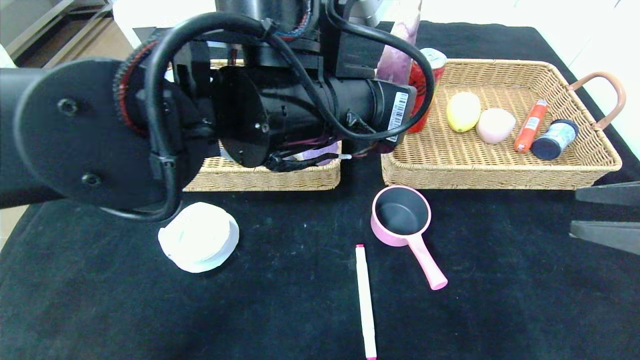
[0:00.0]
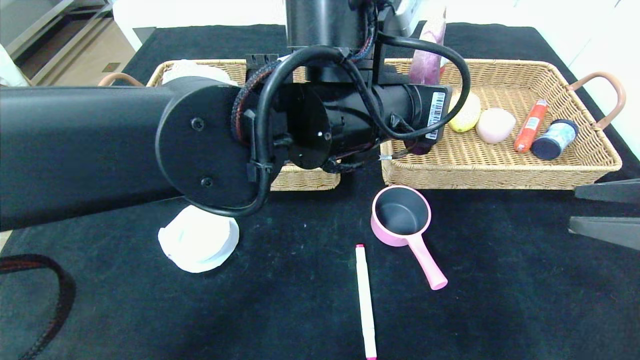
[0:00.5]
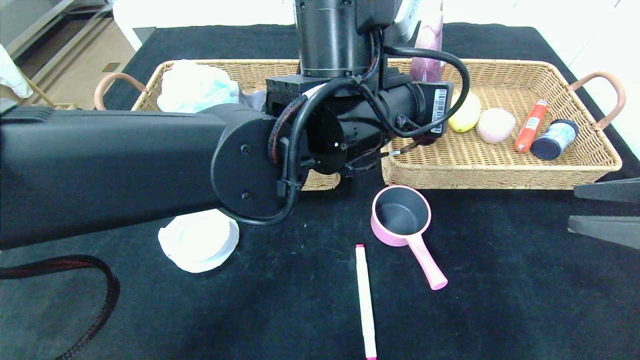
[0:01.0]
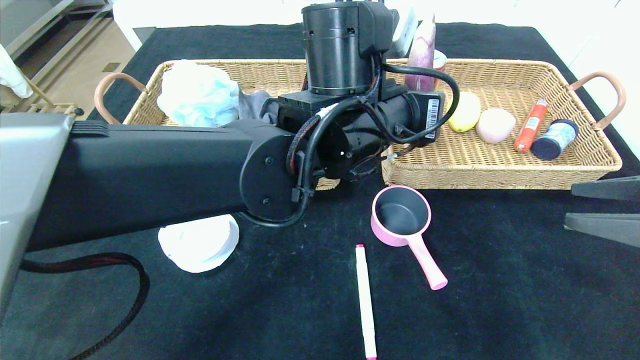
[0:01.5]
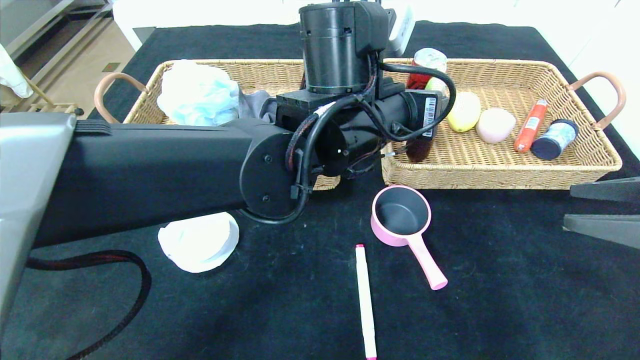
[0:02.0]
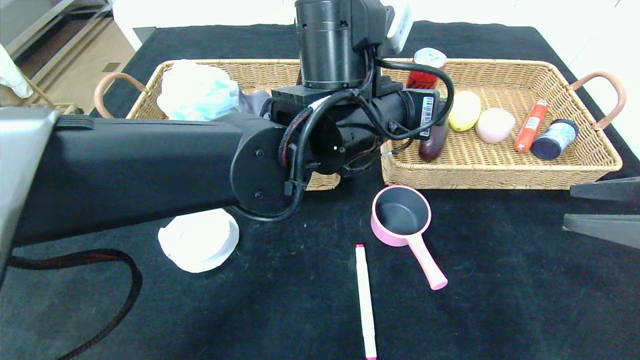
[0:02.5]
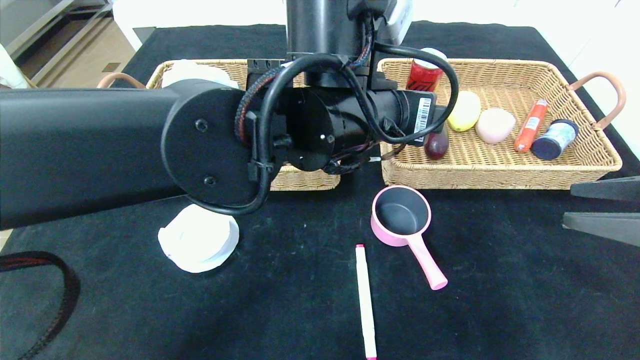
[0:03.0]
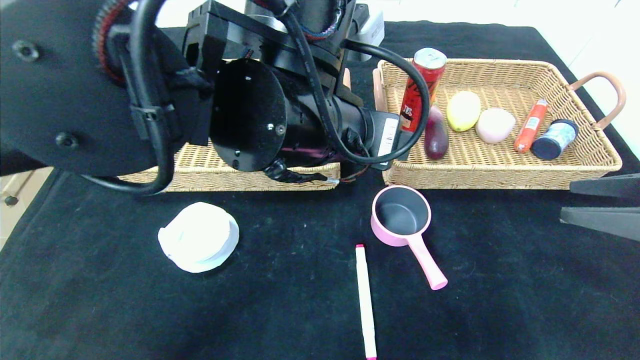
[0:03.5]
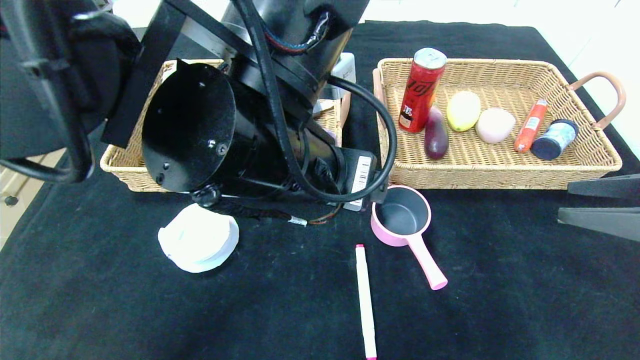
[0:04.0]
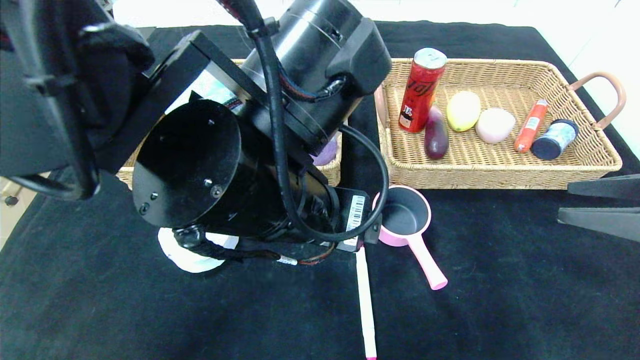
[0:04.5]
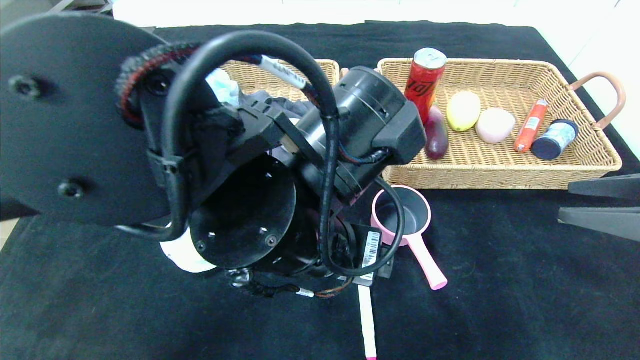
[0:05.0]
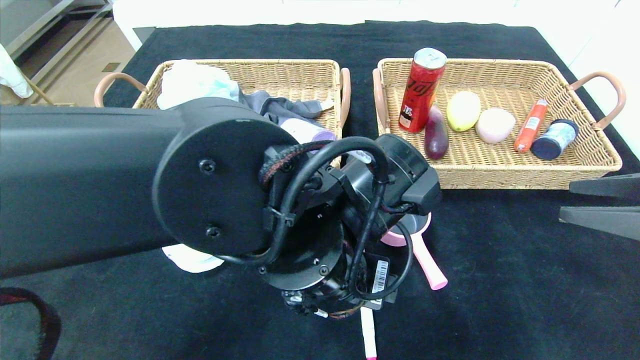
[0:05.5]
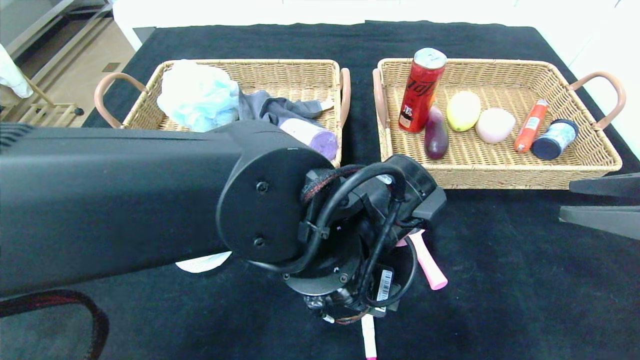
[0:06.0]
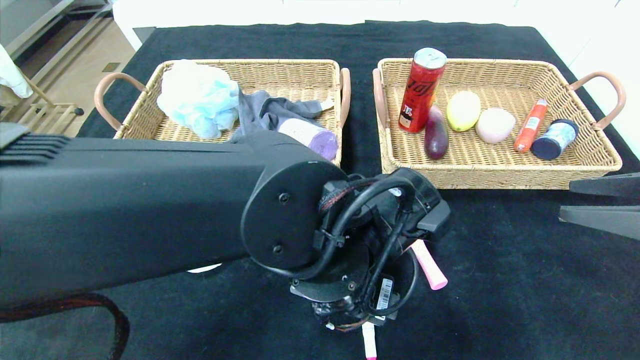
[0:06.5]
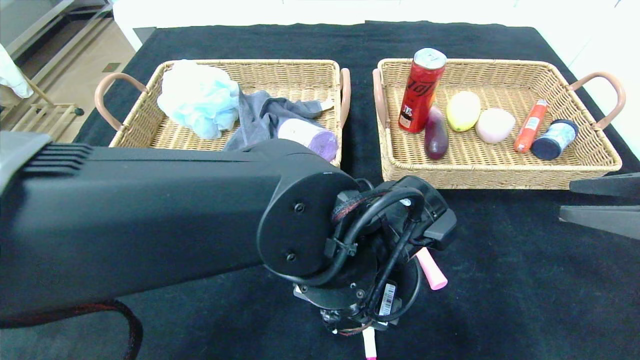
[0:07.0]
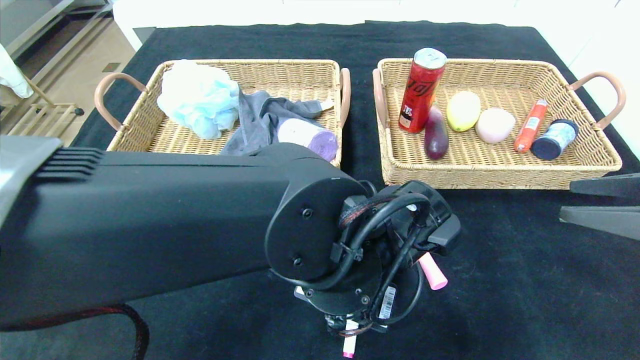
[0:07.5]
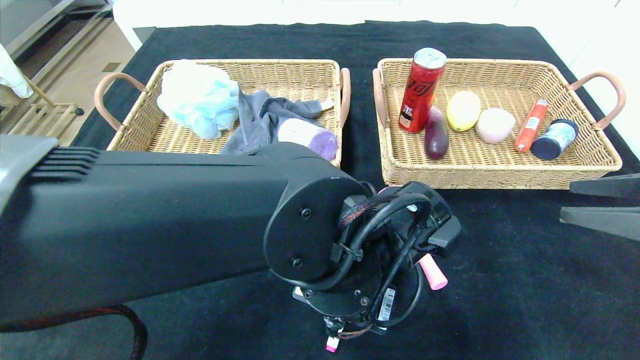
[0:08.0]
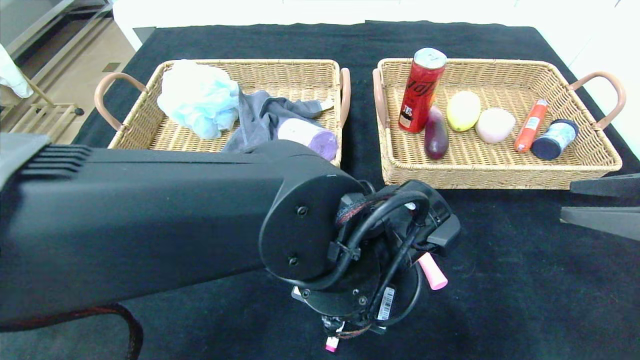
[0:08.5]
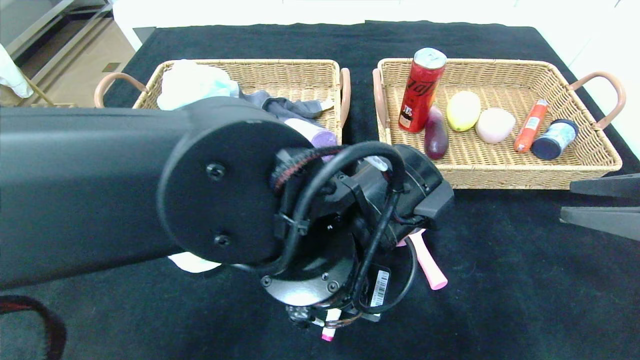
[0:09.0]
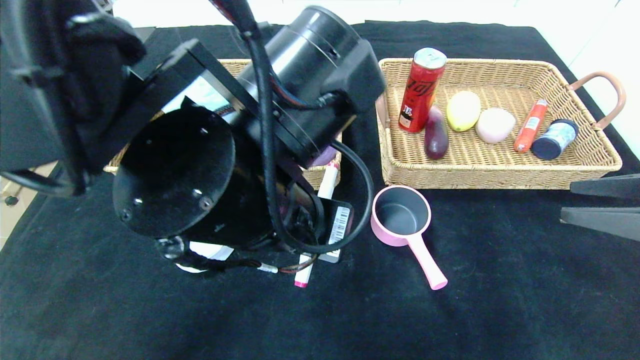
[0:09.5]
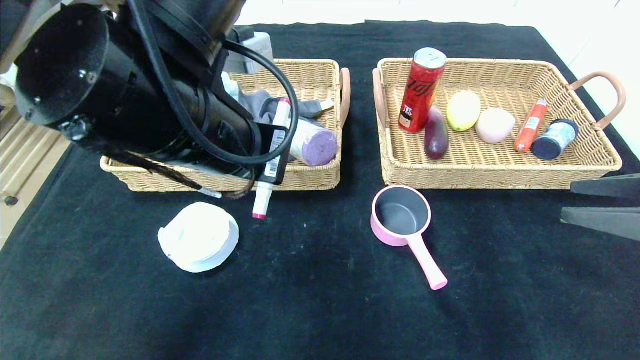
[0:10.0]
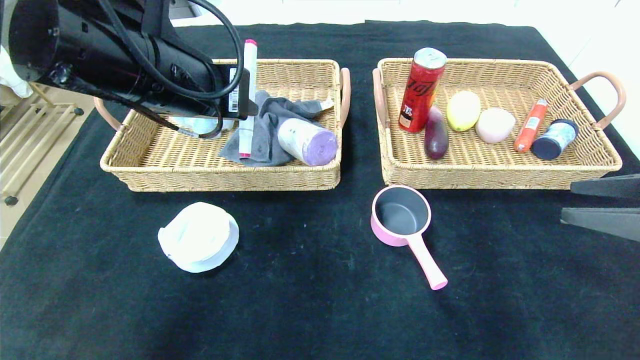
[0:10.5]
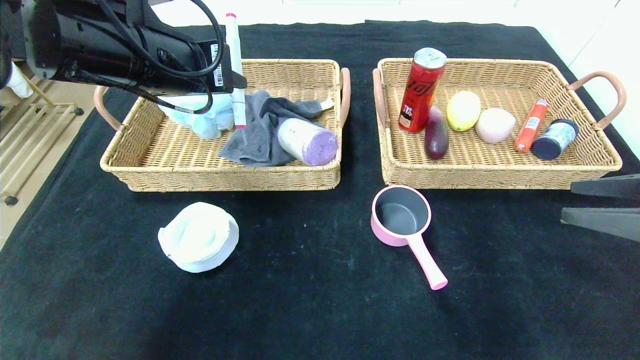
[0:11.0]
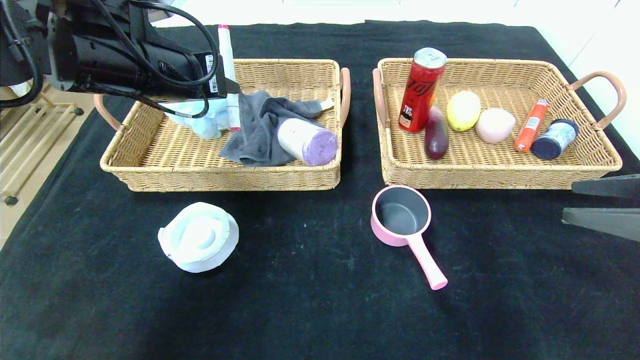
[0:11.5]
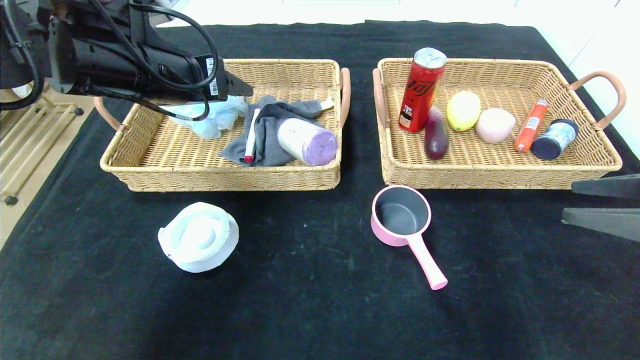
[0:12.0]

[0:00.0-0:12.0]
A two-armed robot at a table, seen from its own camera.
Step, 0:00.0 to 0:05.5: Grasp the pink marker and put it in the left basket.
0:00.0 to 0:02.0: The left gripper travels forward by some 5 cm.
0:02.0 to 0:04.0: The left gripper heads backward and to the left, covering about 10 cm.
0:04.0 to 0:06.0: The left gripper shifts about 10 cm downward.
0:06.0 to 0:08.0: The left gripper closes up.
0:08.0 to 0:10.0: The left gripper moves upward and to the left, some 20 cm.
0:10.0 to 0:12.0: The left gripper travels forward and to the left by approximately 15 cm, and opens.

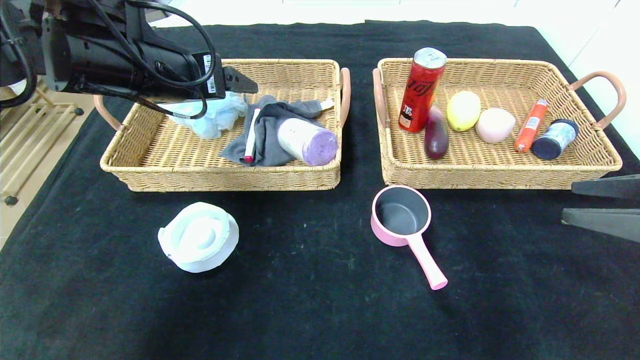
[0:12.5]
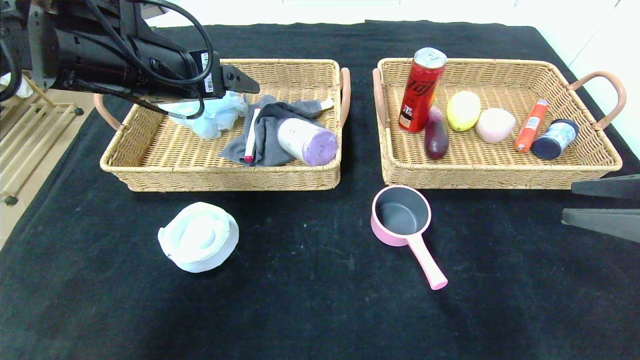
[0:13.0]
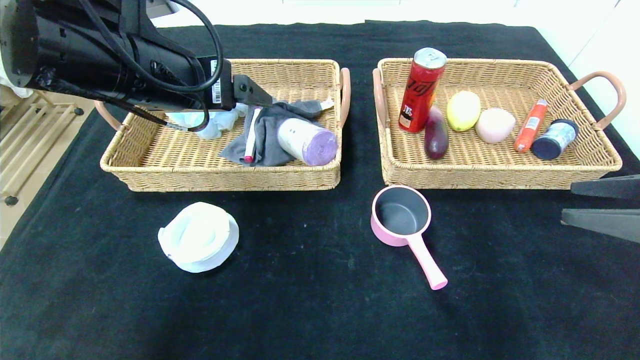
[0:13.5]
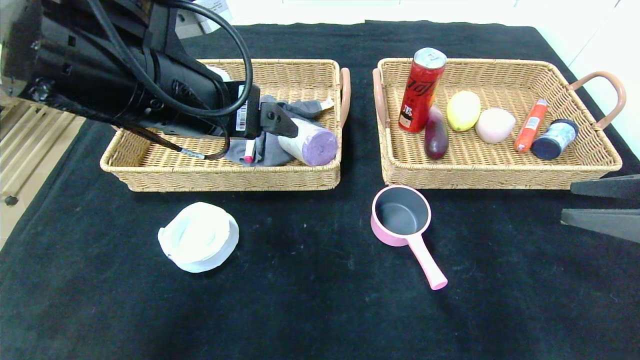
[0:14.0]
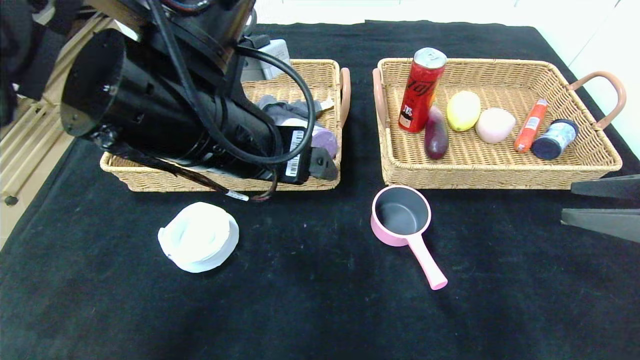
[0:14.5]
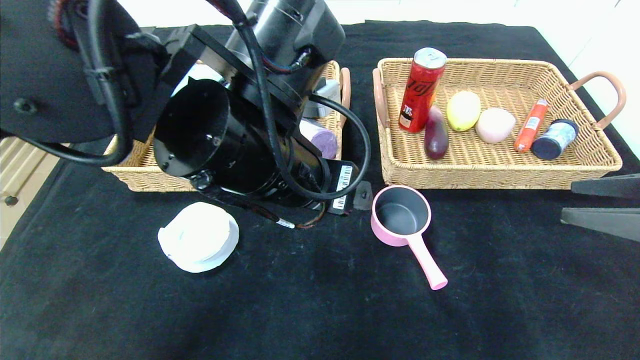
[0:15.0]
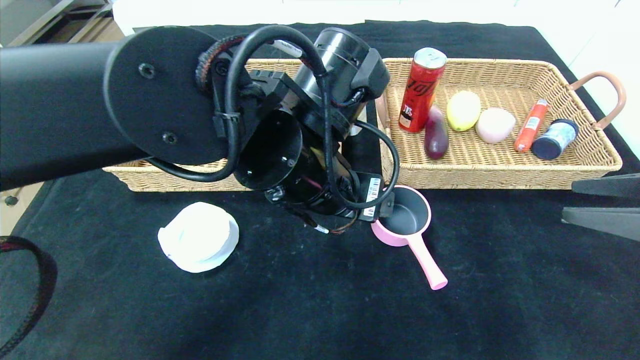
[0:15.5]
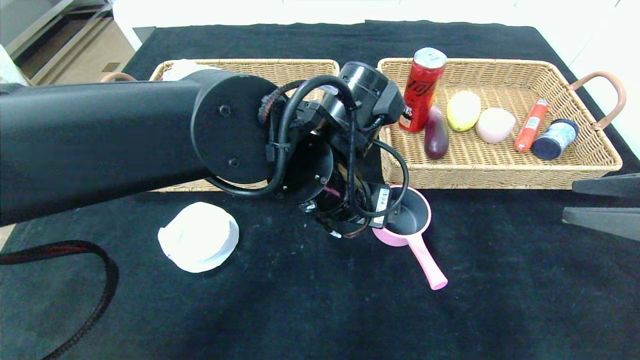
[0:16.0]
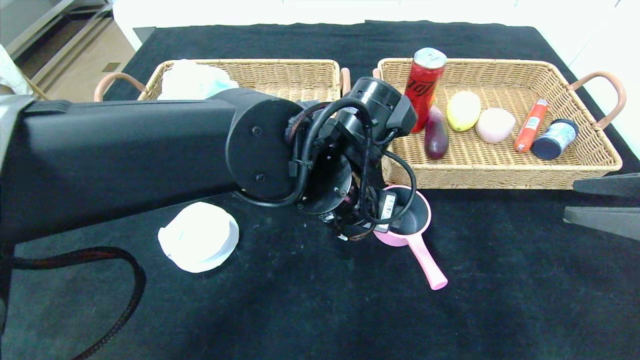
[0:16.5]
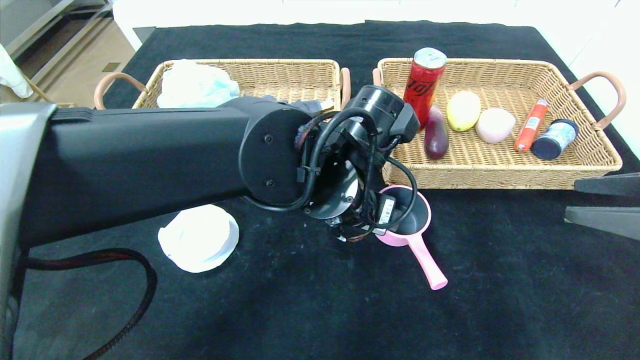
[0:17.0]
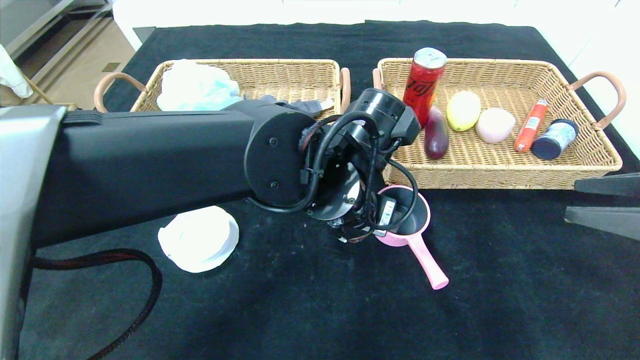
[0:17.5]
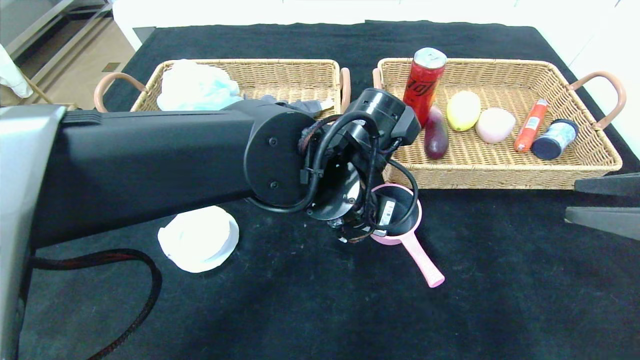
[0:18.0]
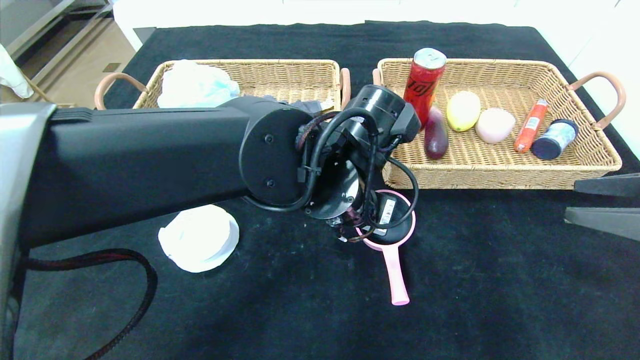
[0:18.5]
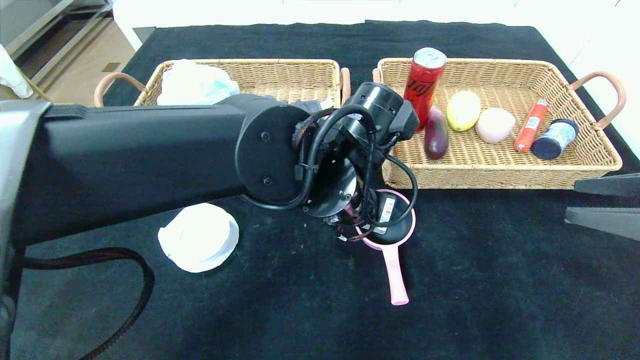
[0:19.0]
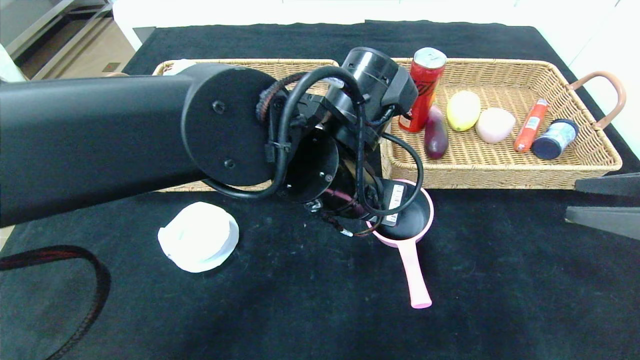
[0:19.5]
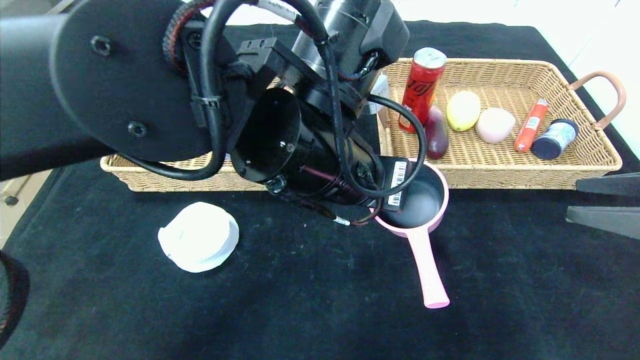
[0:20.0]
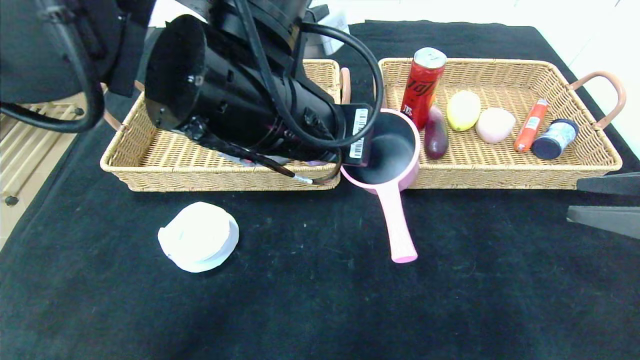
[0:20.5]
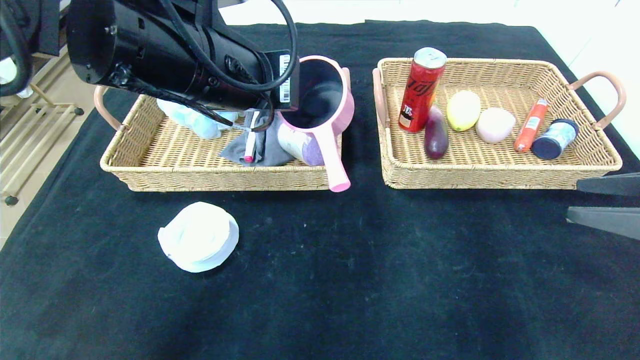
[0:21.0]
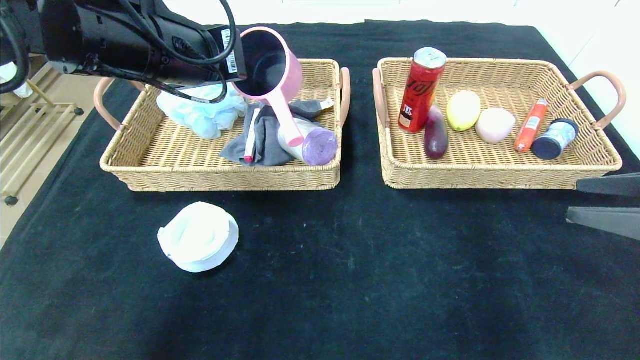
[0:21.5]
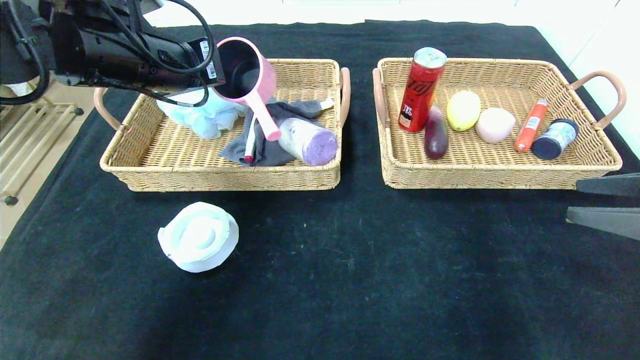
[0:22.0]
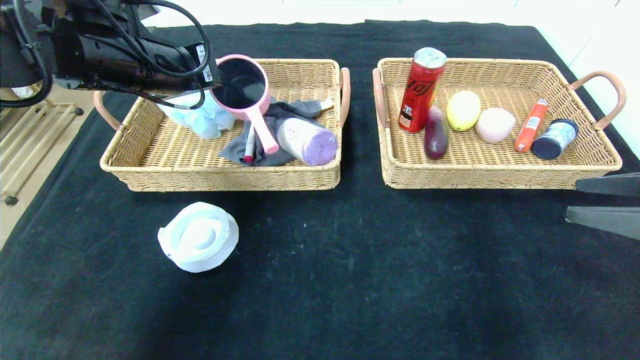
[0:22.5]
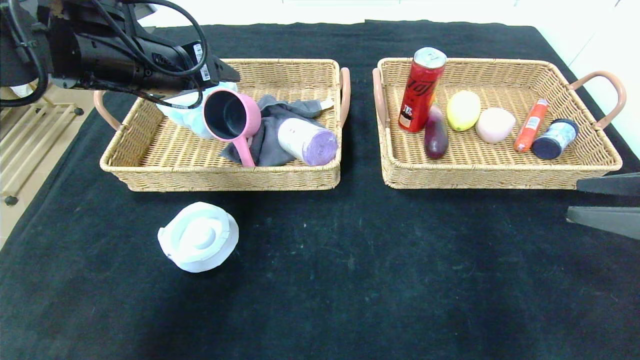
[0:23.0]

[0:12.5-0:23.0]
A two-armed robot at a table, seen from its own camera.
Step, 0:12.5 to 0:14.5: Grasp the pink bowl and put it in the left basket.
0:12.5 to 0:14.5: The left gripper shifts about 15 cm to the right and backward.
0:14.5 to 0:16.5: The left gripper shifts about 10 cm to the right and downward.
0:16.5 to 0:19.0: The left gripper closes its fingers.
0:19.0 to 0:21.0: The left gripper moves upward and to the left, approximately 15 cm.
0:21.0 to 0:23.0: The left gripper moves to the left and forward, approximately 15 cm, and opens up.
